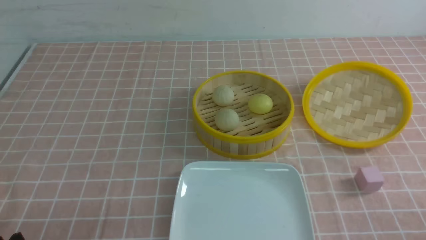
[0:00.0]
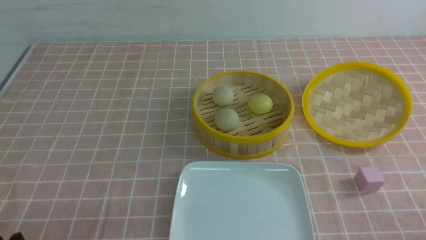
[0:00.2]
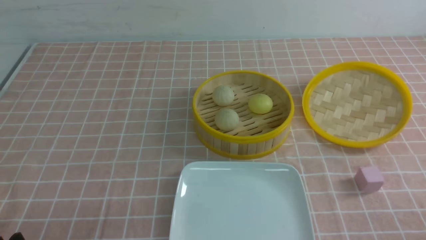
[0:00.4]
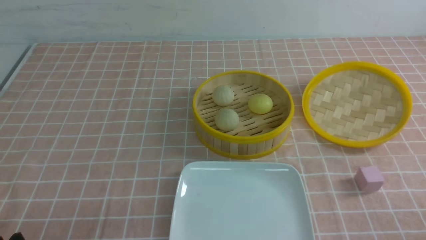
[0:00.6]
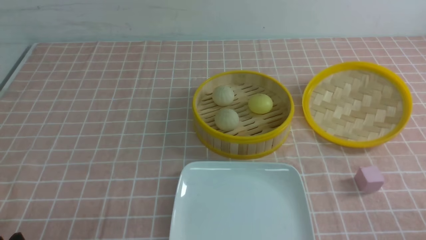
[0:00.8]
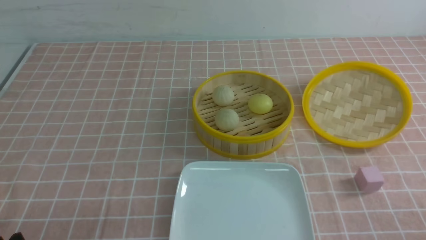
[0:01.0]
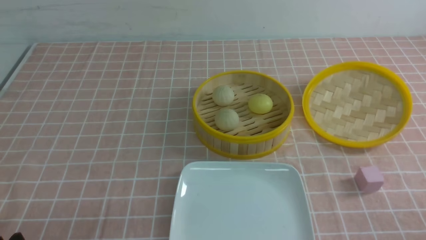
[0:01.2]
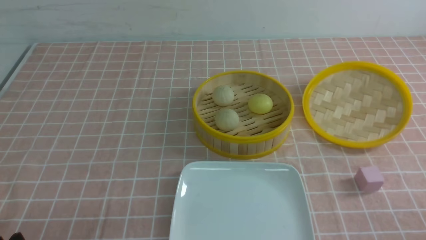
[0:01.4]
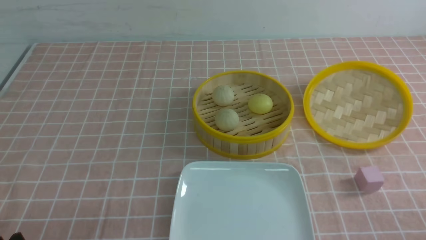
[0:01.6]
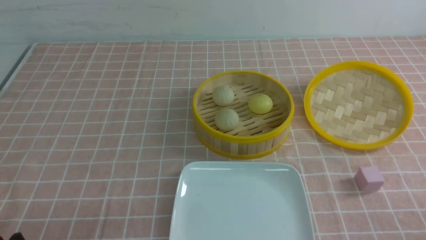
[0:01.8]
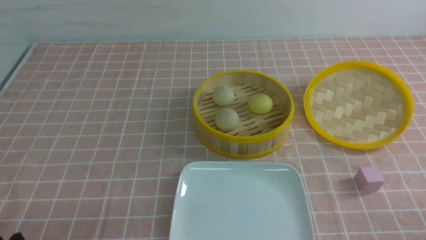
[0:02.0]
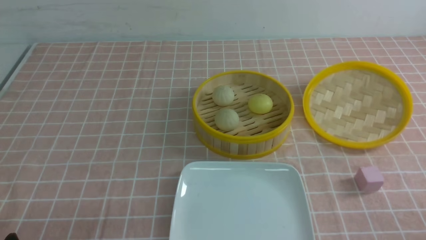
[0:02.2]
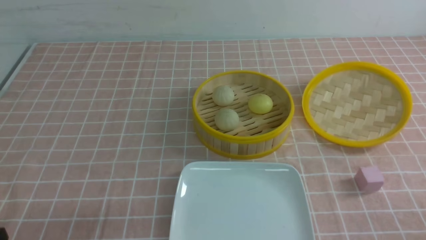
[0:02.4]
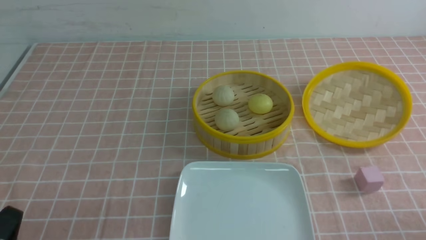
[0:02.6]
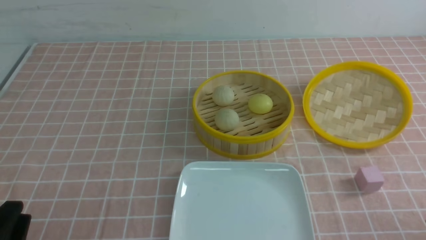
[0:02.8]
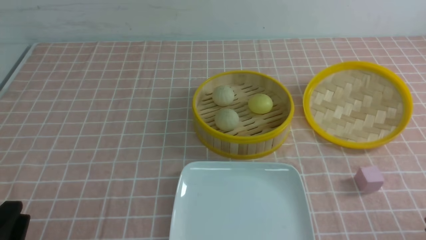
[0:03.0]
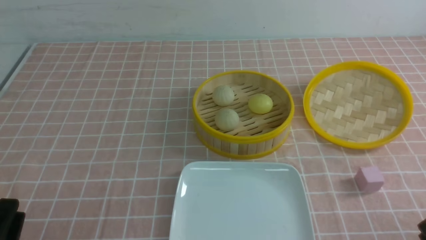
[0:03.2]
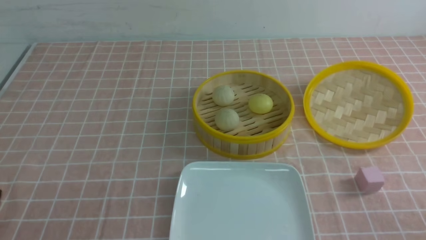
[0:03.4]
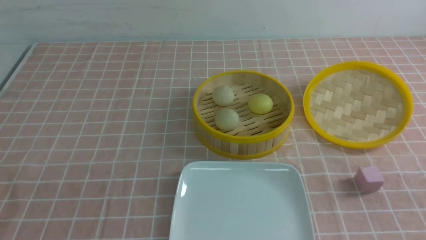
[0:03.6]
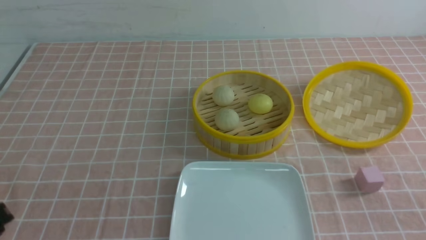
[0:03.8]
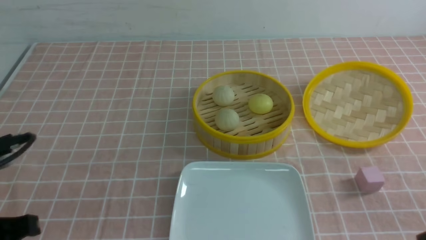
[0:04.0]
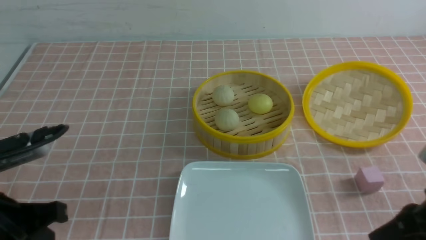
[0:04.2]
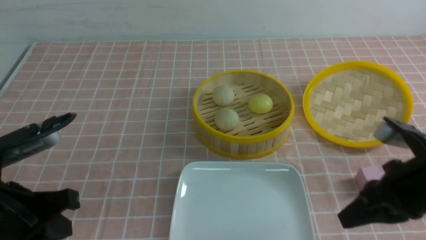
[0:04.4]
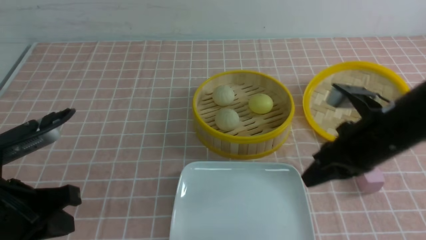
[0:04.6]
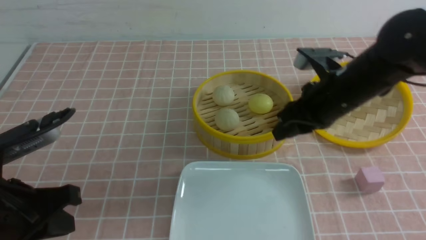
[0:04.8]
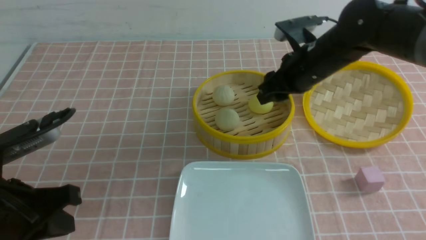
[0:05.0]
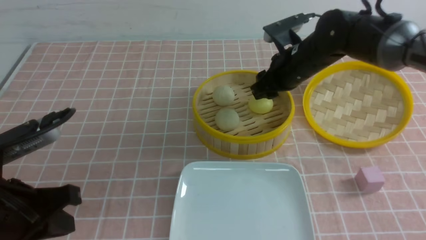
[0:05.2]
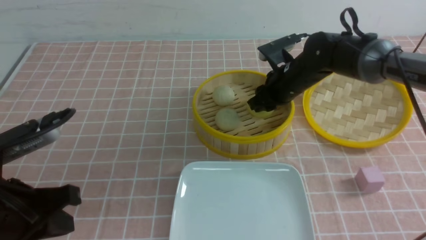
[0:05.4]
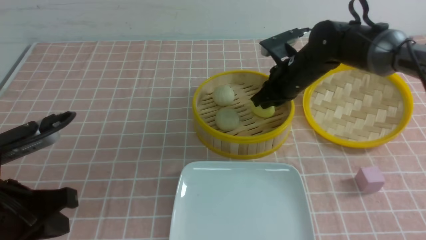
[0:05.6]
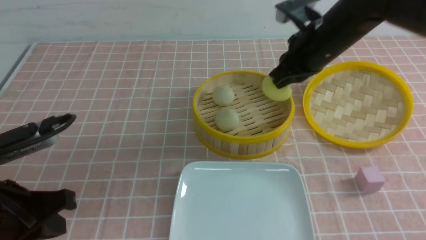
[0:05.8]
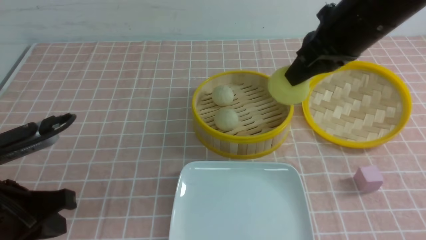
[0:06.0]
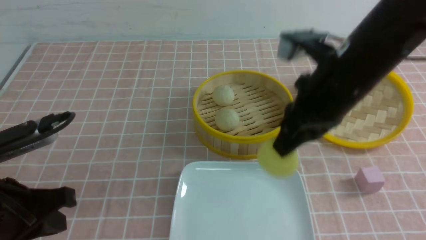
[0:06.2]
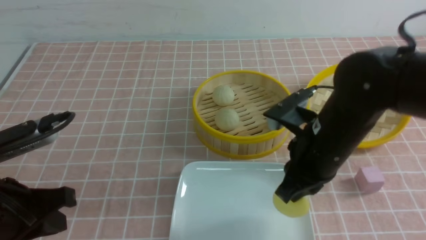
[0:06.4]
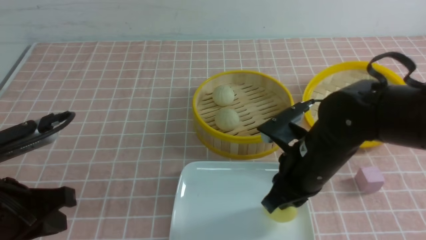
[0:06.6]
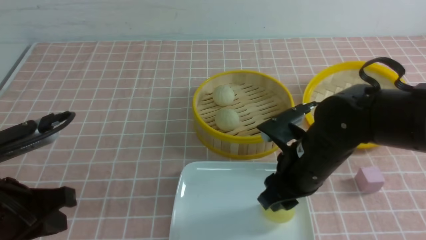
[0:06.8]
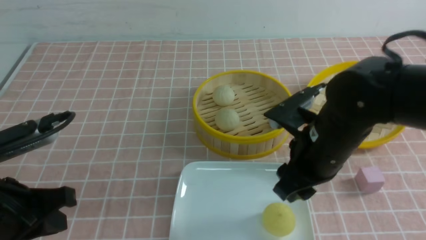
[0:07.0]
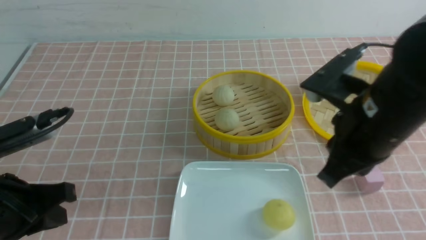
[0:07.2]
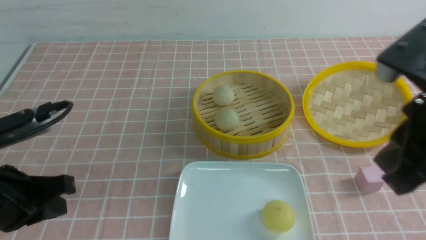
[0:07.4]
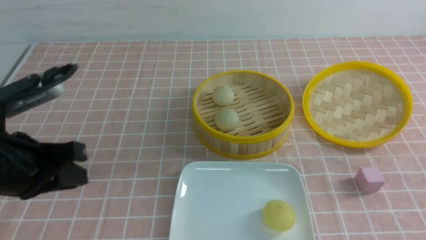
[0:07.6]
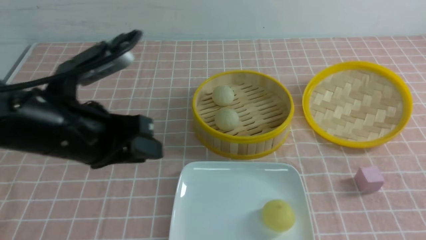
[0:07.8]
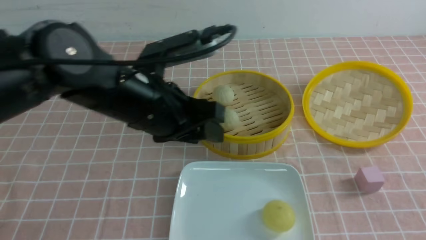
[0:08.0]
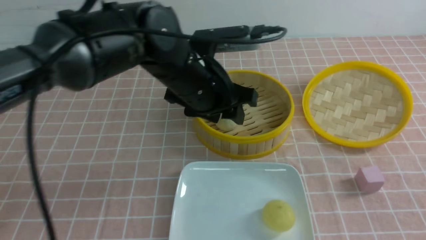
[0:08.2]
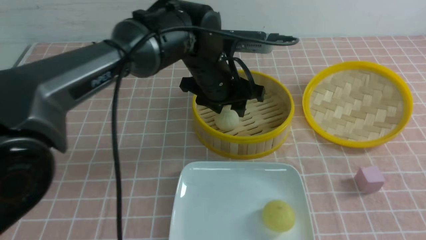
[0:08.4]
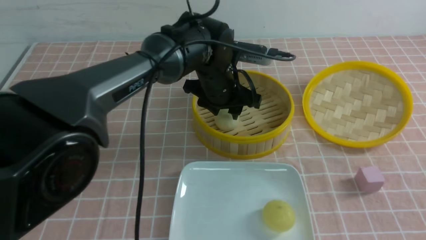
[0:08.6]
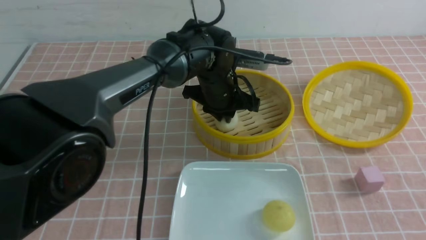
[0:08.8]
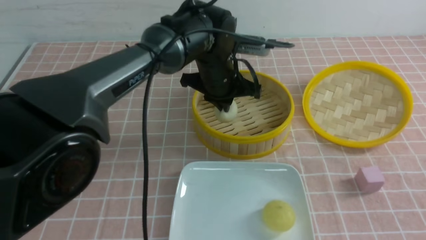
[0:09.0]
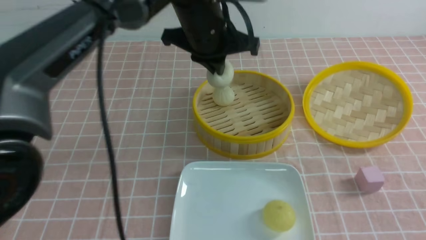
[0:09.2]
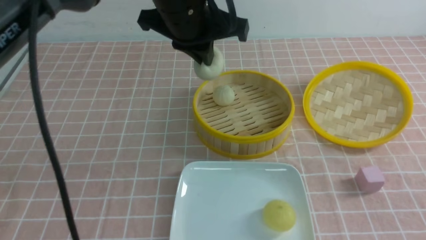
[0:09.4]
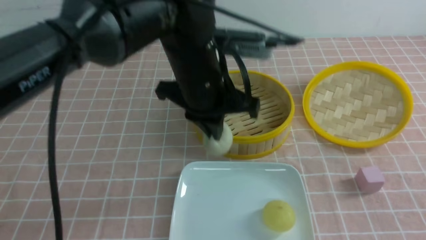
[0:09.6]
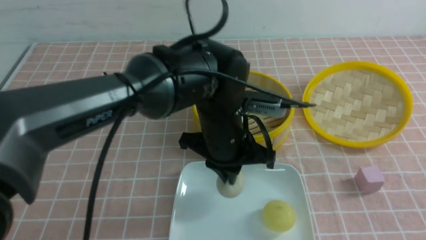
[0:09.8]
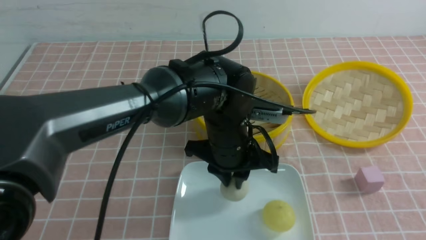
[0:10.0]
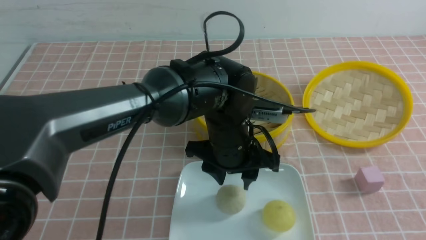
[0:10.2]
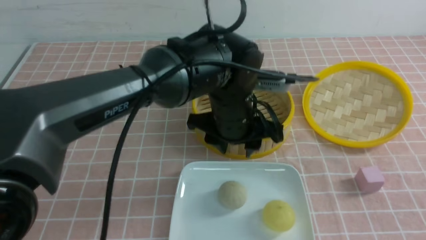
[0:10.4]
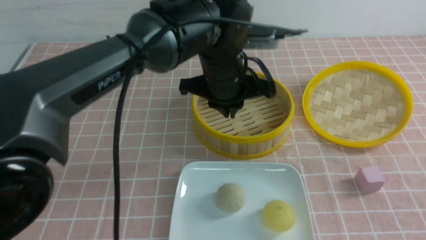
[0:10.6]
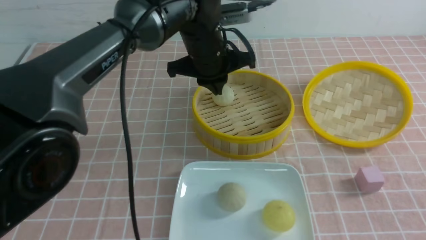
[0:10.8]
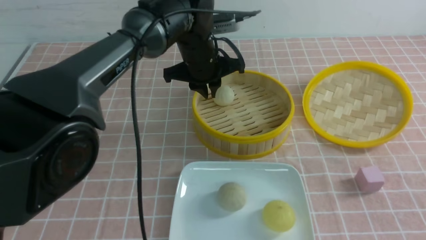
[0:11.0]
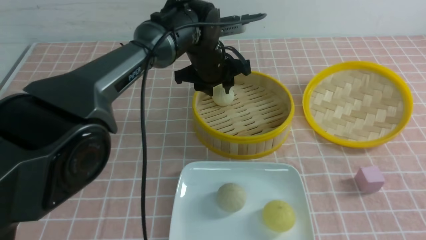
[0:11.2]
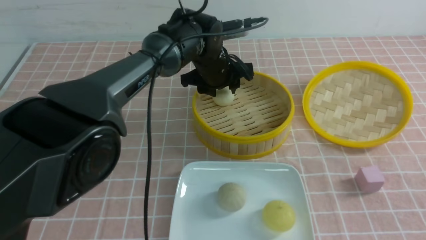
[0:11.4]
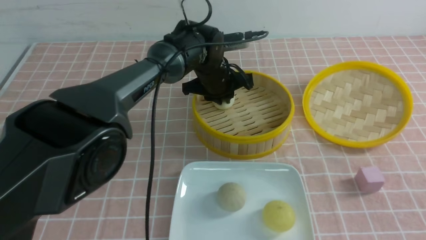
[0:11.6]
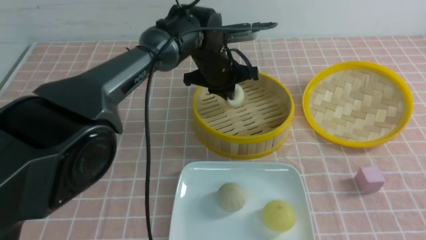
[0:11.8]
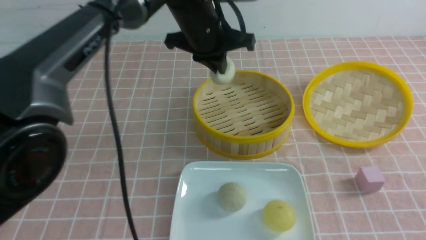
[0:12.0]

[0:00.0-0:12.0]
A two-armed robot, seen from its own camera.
Step, 0:00.0 to 0:05.4: use the right arm to grab the steamed stuffed bun that is closest to it.
Step, 0:05.6 to 0:06.8: use the right arm to put the steamed stuffed bun into the plate.
Step, 0:07.0 to 0:08.8: use the left arm to grab the steamed stuffed bun that is closest to it.
Step, 0:09.0 to 0:10.0: use the left arm to put the steamed stuffed bun into the plate.
Step, 0:10.2 to 0:11.6: use the left arm to grab the steamed stuffed bun that is closest to it.
0:00.0 to 0:01.6: Both grippers stay about where they are.
0:03.0 to 0:04.4: The left gripper goes about 10 cm forward and upward, and closes its fingers. Meanwhile the right gripper shifts roughly 20 cm forward, upward and to the left, and closes its fingers.
0:04.4 to 0:06.0: The right gripper travels forward, upward and to the left by roughly 15 cm, and opens, then closes once more.
0:06.0 to 0:07.6: The left gripper ends up some 5 cm from where it was. Meanwhile the right gripper heads backward and to the right, covering some 25 cm, and opens, then closes once more.
0:07.6 to 0:09.0: The right gripper shifts by some 5 cm. The left gripper is displaced to the right and forward by roughly 30 cm, and opens and closes again.
0:09.0 to 0:10.4: The left gripper goes roughly 10 cm backward, reaches some 5 cm upward, then returns, and opens.
0:10.4 to 0:12.0: The left gripper heads forward and upward, covering roughly 10 cm, and closes its fingers.

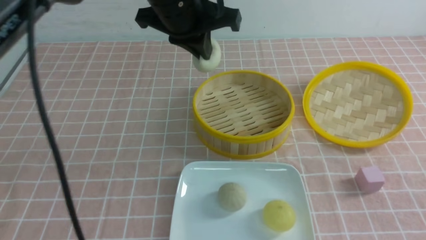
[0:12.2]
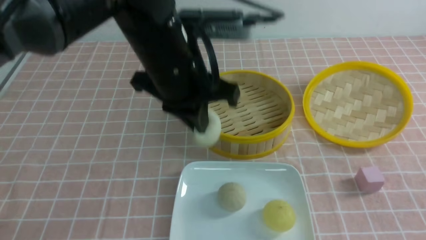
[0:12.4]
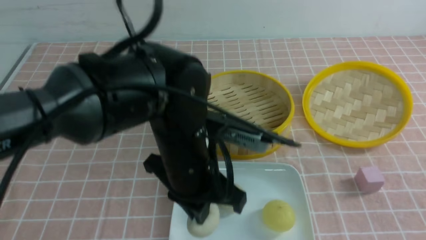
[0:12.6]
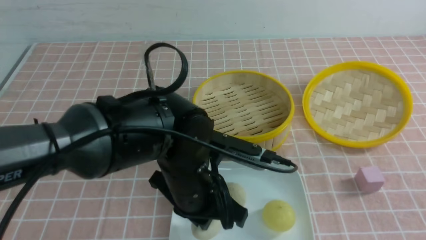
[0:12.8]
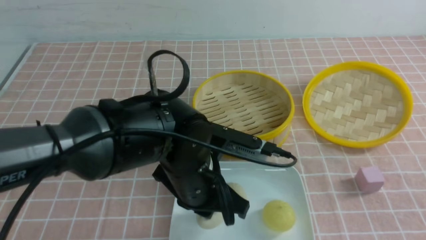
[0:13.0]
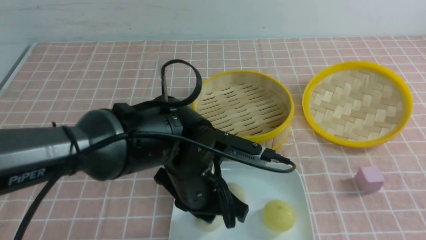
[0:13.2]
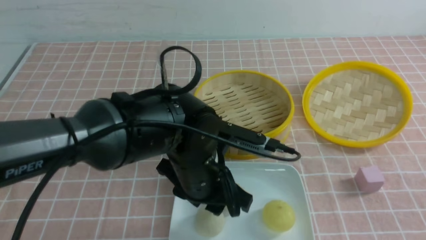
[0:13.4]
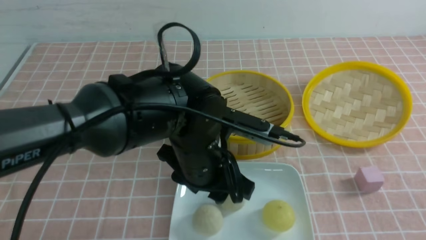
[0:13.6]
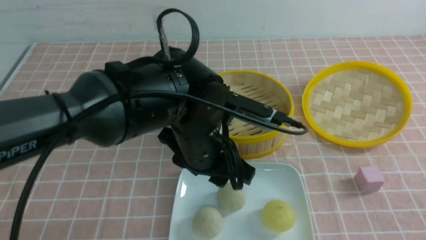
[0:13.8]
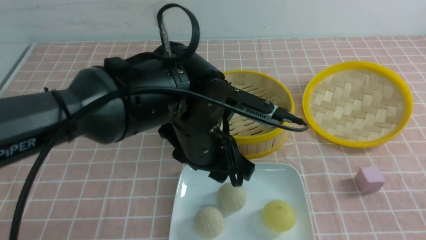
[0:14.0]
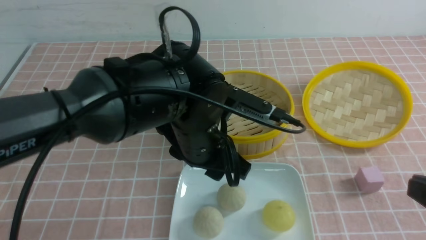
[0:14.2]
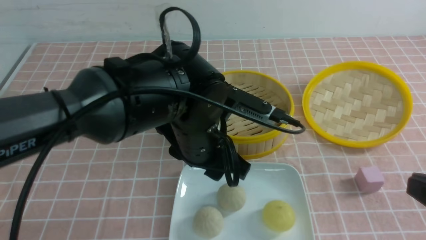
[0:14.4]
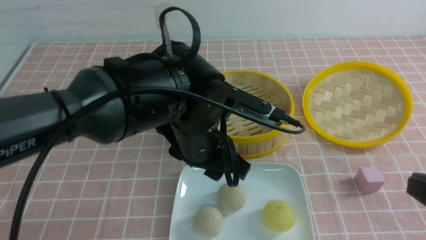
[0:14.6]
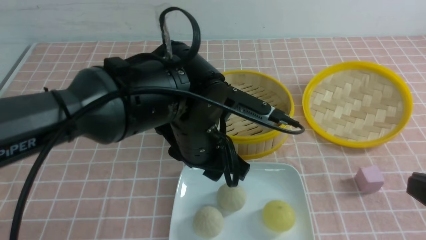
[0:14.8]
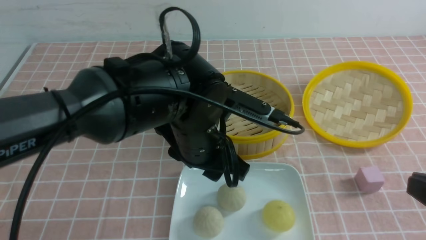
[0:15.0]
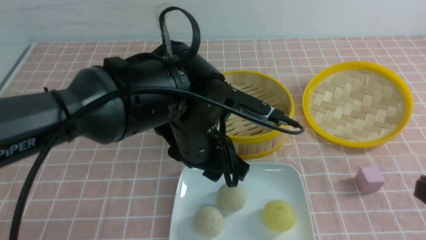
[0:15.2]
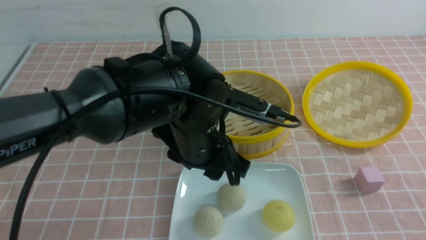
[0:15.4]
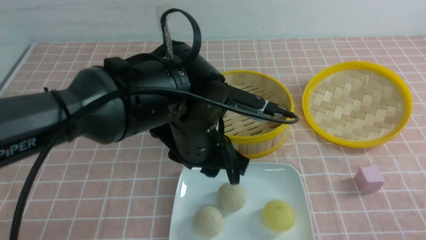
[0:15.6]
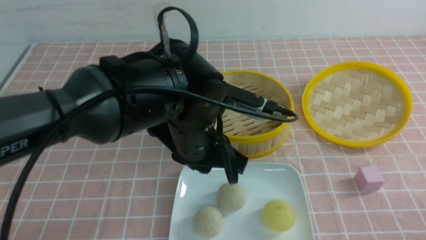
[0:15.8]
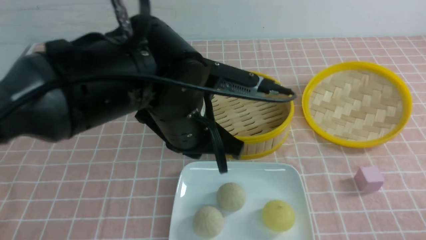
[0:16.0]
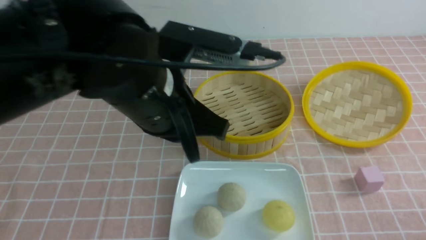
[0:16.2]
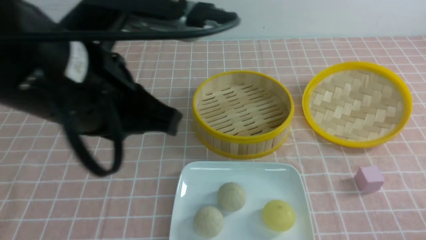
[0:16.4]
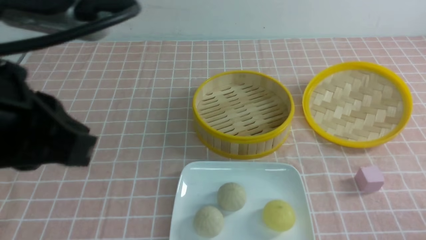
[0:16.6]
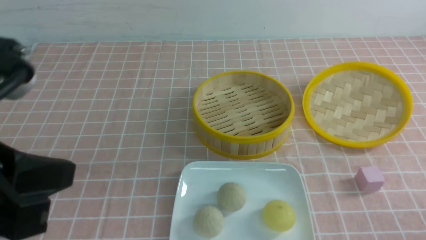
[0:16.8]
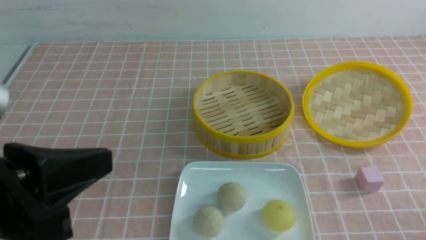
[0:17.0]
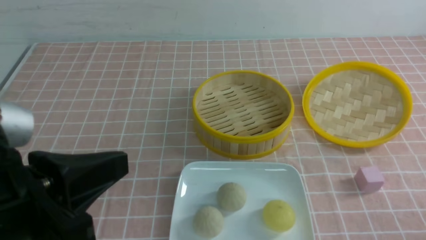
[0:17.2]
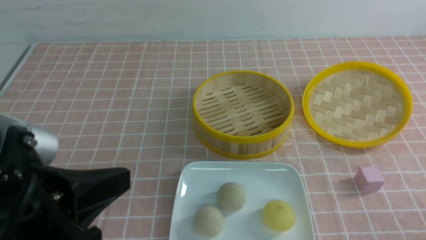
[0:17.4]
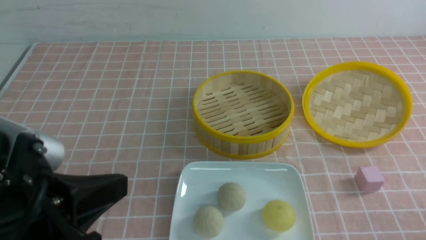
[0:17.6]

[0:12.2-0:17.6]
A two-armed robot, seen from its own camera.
Step, 0:12.2 to 0:13.2: use the left arm to put the steamed stuffed bun into the plate.
0:12.2 to 0:13.6: The left gripper travels downward and backward by some 15 cm, and opens up.
0:13.6 to 0:15.0: The right gripper shifts by approximately 5 cm.
0:15.0 to 0:16.2: The left gripper is displaced upward and to the left by some 10 cm, and closes up. Meanwhile the right gripper goes about 15 cm downward and to the right.
0:16.2 to 0:17.6: The left gripper goes approximately 15 cm backward and to the left.
